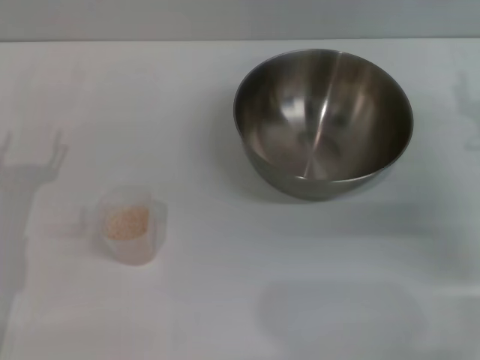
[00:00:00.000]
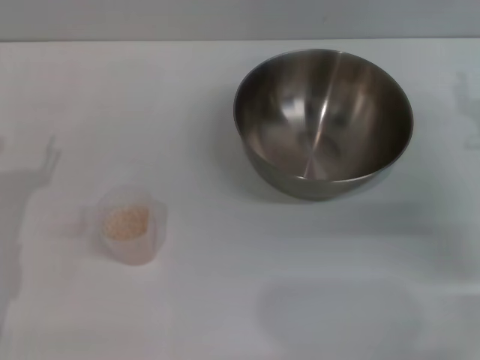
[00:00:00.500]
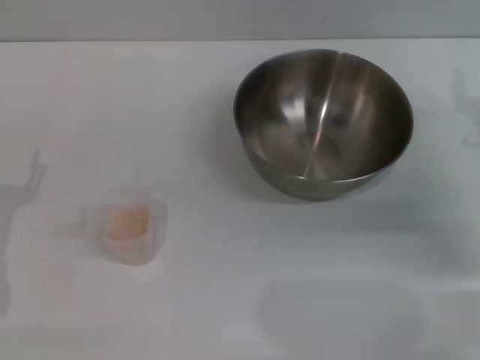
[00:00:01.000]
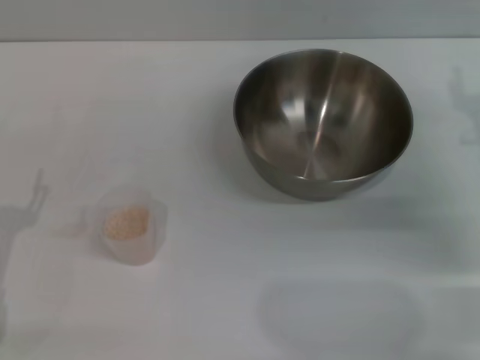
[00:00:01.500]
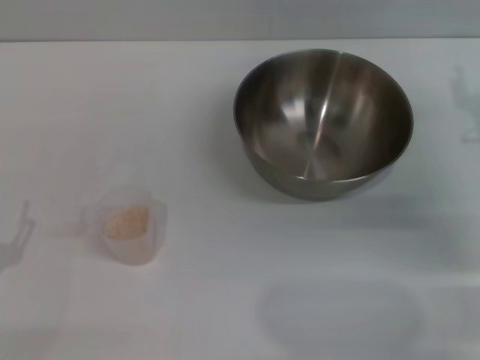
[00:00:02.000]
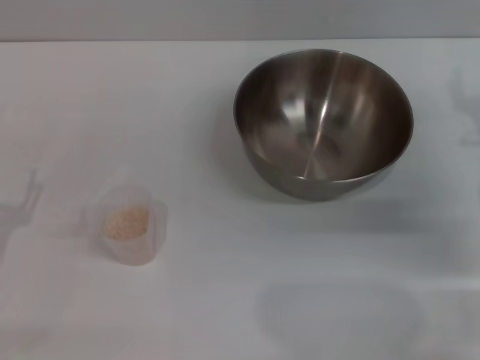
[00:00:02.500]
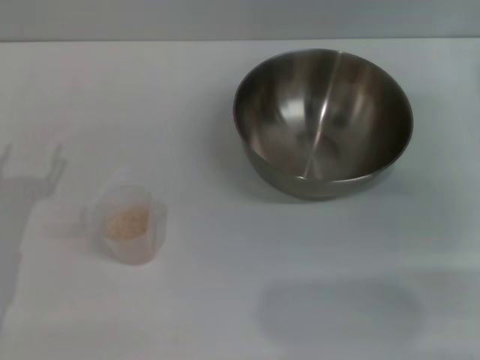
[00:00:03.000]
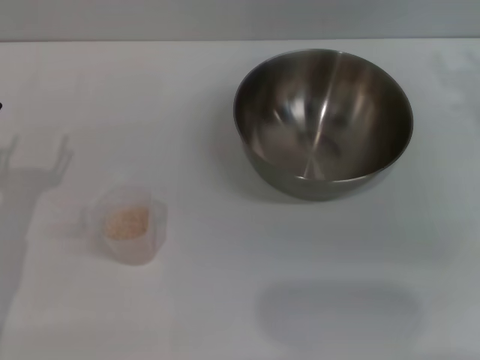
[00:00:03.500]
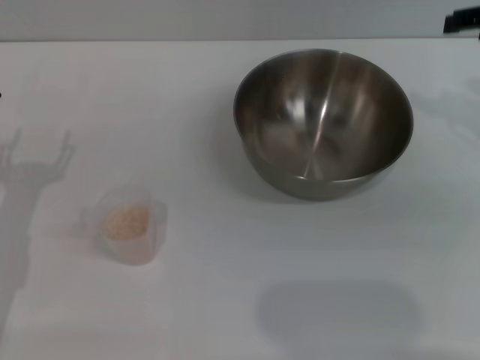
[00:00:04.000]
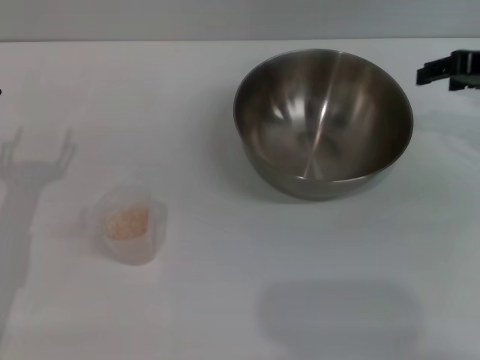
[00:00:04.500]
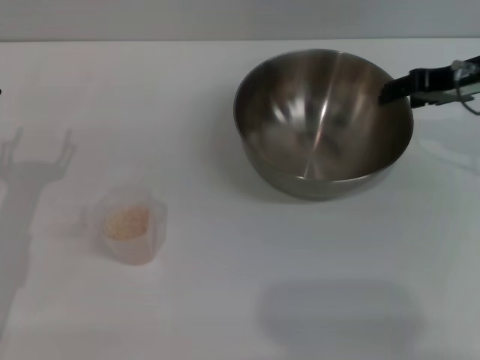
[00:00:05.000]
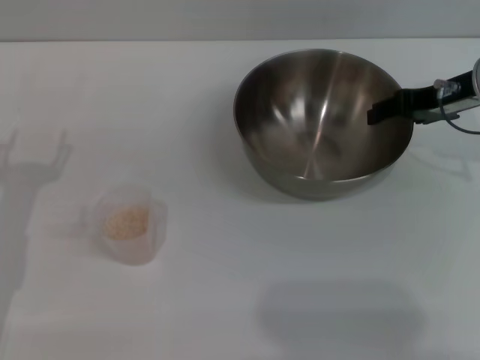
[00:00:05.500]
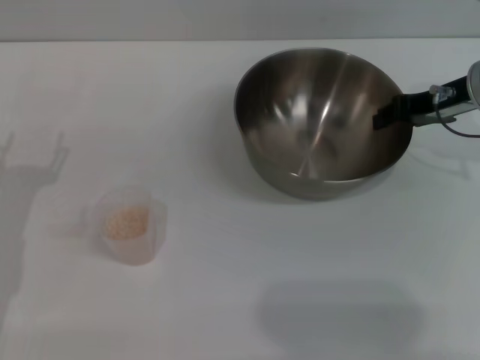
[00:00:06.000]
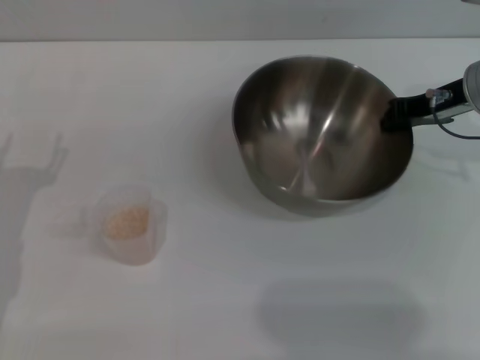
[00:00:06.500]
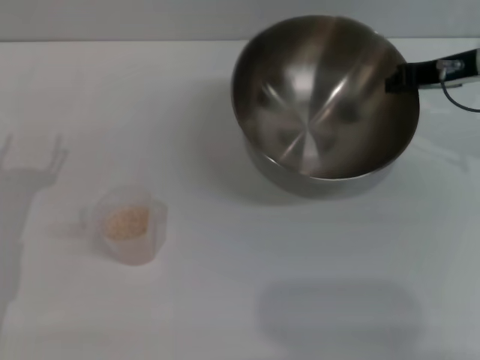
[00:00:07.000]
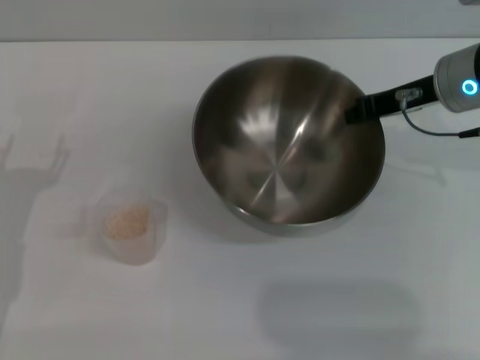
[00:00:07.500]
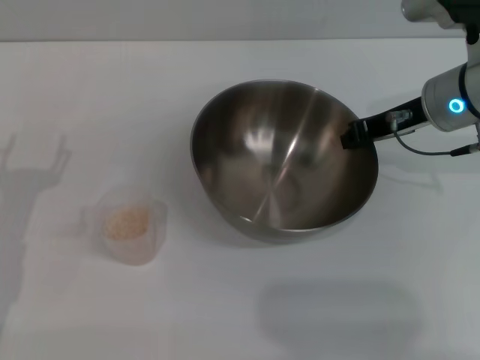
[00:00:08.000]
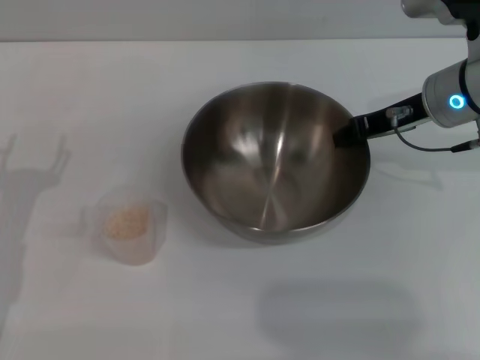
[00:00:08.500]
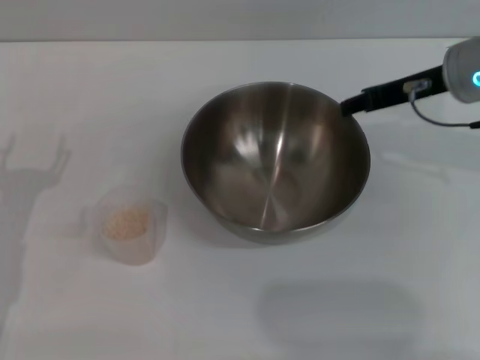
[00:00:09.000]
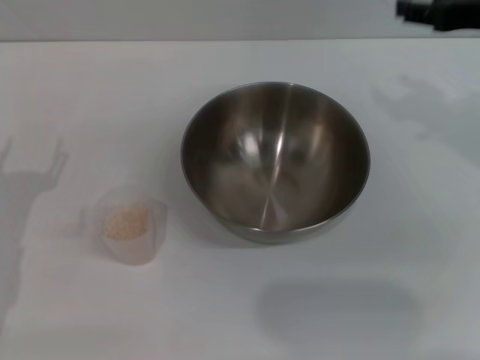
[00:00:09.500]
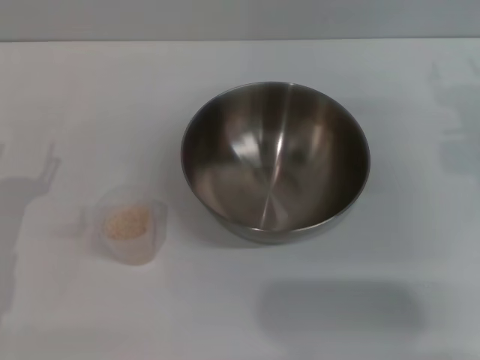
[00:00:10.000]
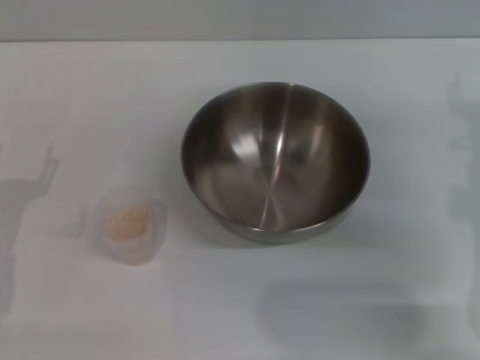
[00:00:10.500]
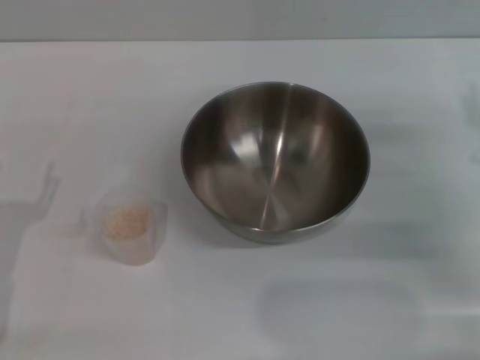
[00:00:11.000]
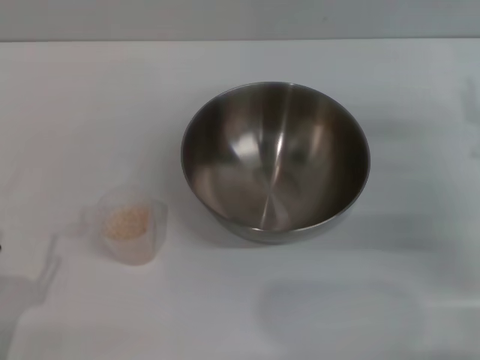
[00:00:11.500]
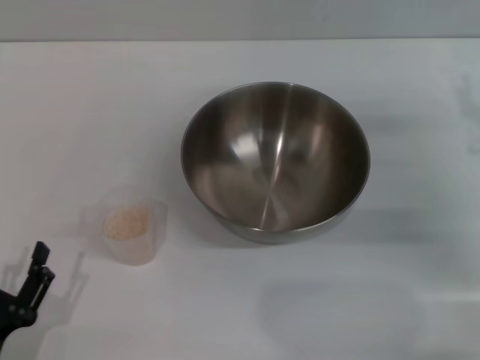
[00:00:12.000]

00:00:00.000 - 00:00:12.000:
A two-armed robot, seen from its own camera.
Task of the whole recording: Place the bowl in the middle of the table with one hand and pour the rice from the grain cup into it with the other hand.
Step, 00:00:00.000 - 00:00:07.500: Pick up the bowl with the right gripper.
Step, 00:00:08.000 - 00:00:09.000: Place the bowl in the center of view with the right gripper.
00:00:04.000 - 00:00:06.000: The right gripper heads downward, covering approximately 10 cm.
00:00:06.000 - 00:00:08.000: The right gripper changes place by approximately 5 cm, and closes up.
00:00:08.000 - 00:00:10.000: The right gripper goes about 10 cm backward and to the right, and opens.
00:00:10.000 - 00:00:12.000: The right gripper is displaced downward by approximately 10 cm; the left gripper is displaced backward by approximately 15 cm.

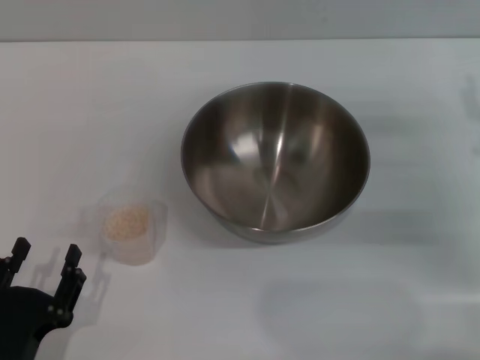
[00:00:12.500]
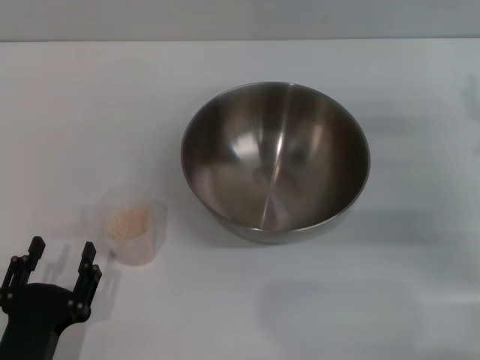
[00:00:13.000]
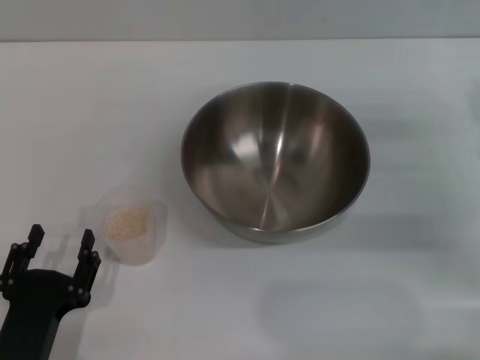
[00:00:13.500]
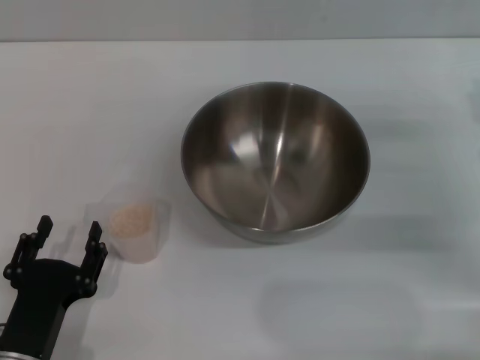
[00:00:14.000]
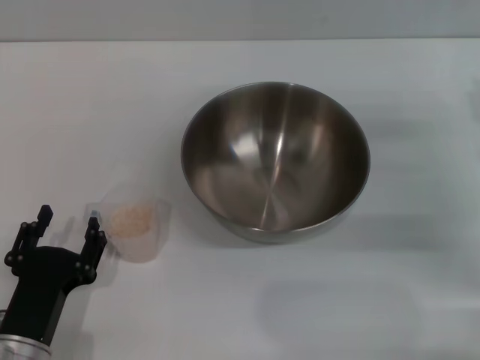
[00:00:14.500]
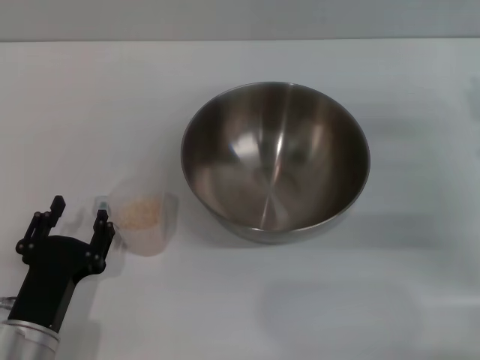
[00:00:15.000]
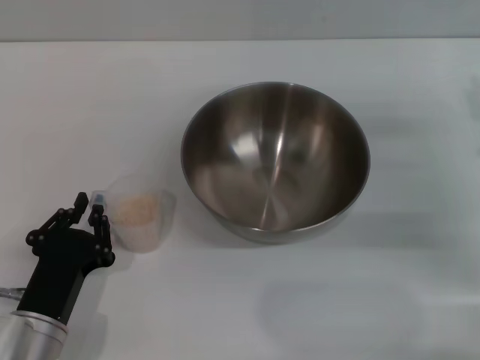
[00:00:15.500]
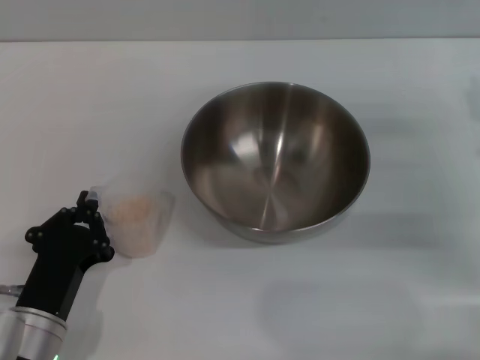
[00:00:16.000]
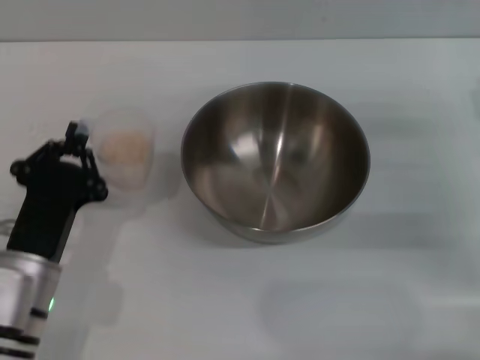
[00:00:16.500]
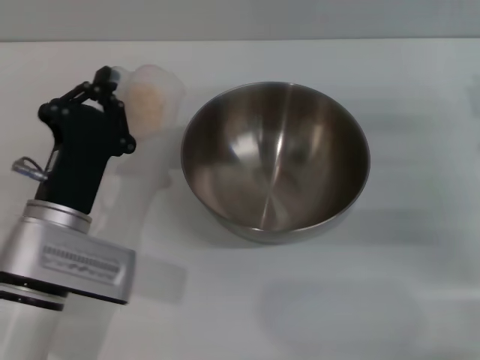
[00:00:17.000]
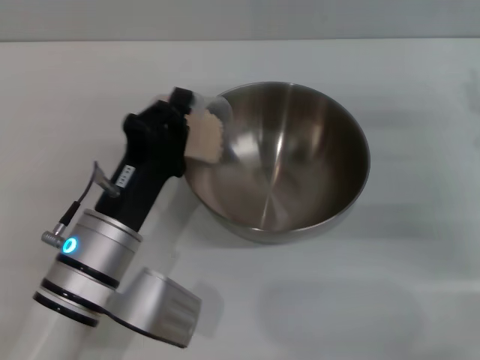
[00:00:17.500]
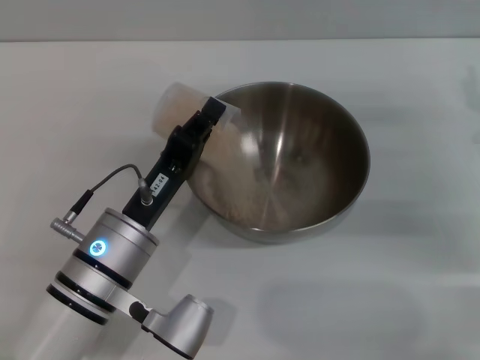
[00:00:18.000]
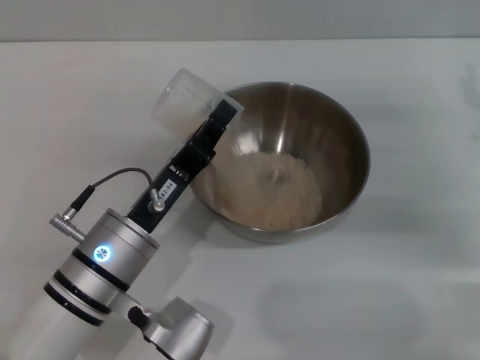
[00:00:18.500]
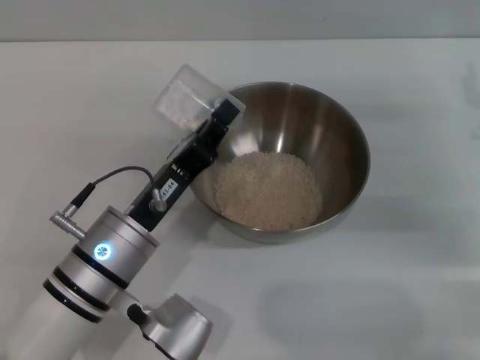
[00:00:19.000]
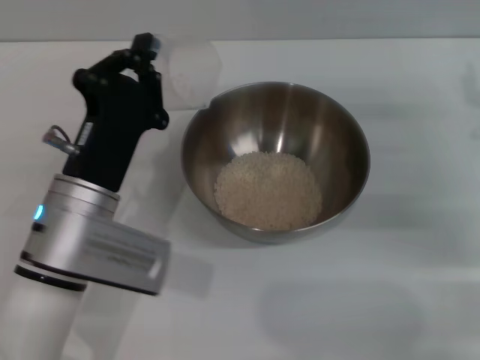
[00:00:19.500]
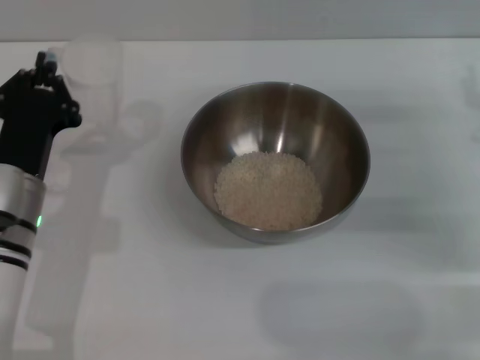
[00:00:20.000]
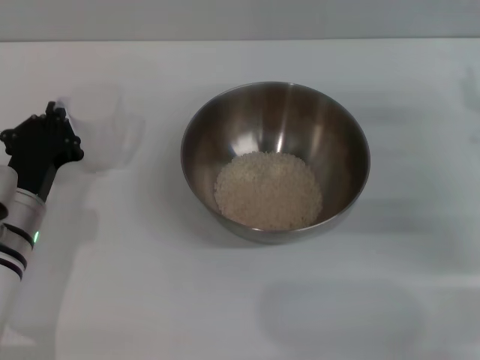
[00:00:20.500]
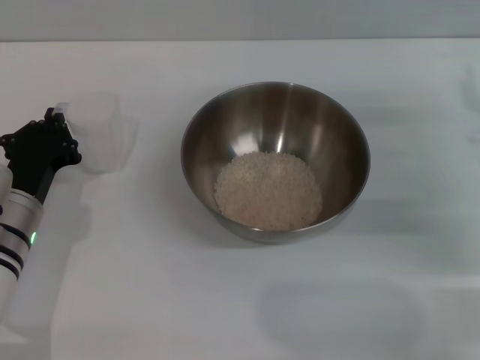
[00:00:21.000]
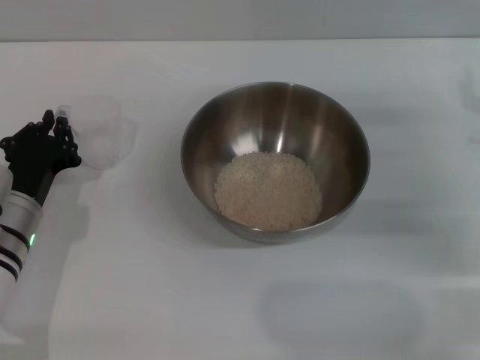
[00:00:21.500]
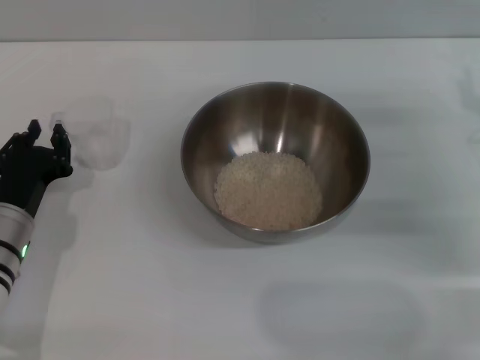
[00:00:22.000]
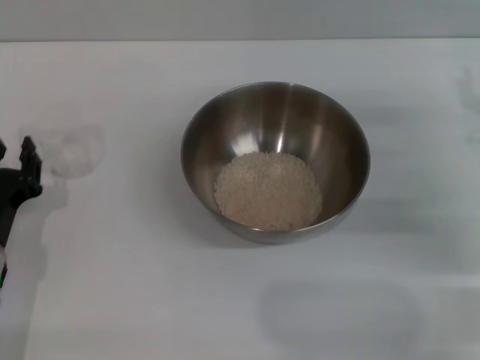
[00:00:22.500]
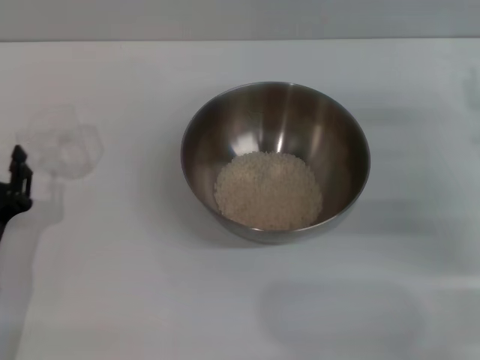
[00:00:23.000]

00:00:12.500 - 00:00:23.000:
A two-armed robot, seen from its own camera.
Task of the whole recording: Place the bowl in the middle of the table with one hand and pour the rice from the grain cup into it with the other hand.
Step, 00:00:12.500 - 00:00:16.500: Pick up the cup with rice in it with the left gripper.
Step, 00:00:17.000 - 00:00:18.500: Pour the rice from the cup into the bowl with the left gripper.
Step, 00:00:19.000 - 00:00:23.000: Place the cup on the table with the left gripper.
00:00:12.500 - 00:00:14.500: The left gripper changes place by roughly 5 cm.
00:00:14.500 - 00:00:16.500: The left gripper travels forward by approximately 5 cm, and closes its fingers.
00:00:16.500 - 00:00:19.000: The left gripper travels to the right by about 5 cm.
00:00:19.000 - 00:00:21.000: The left gripper heads to the left, covering some 10 cm.
00:00:21.000 - 00:00:23.000: The left gripper moves backward, some 5 cm, and opens.
